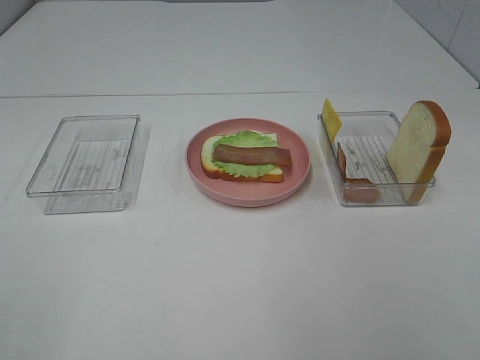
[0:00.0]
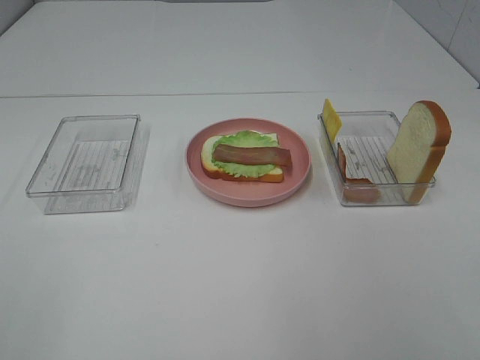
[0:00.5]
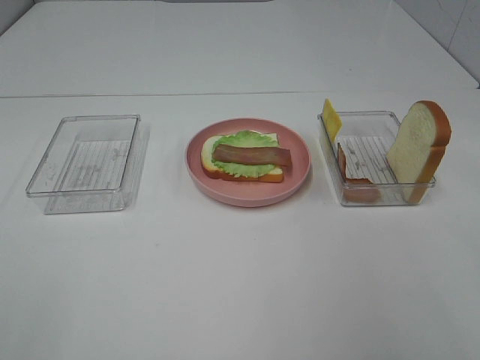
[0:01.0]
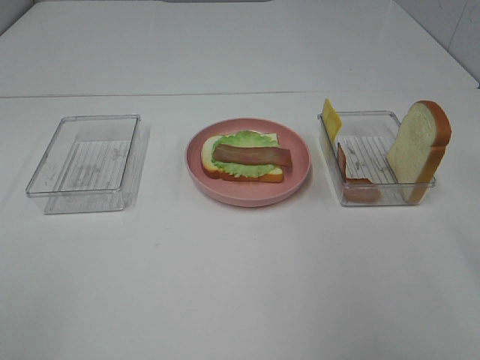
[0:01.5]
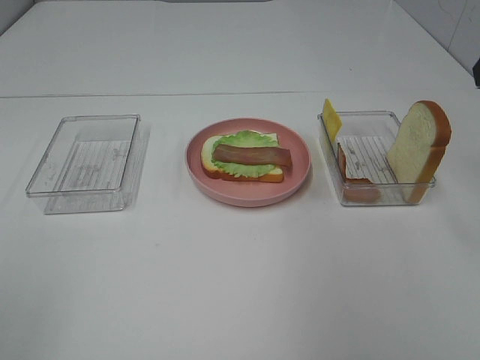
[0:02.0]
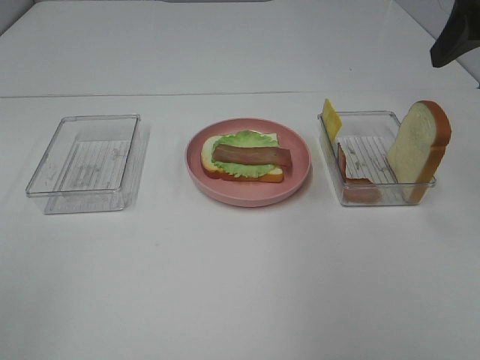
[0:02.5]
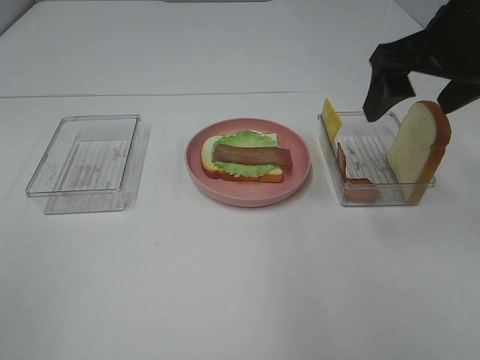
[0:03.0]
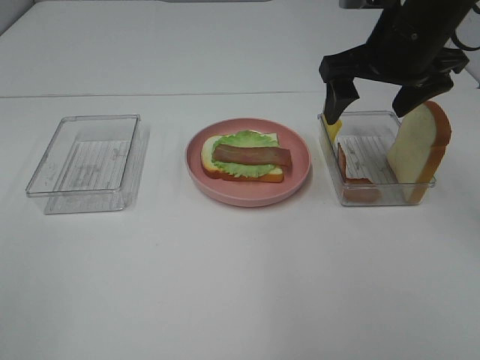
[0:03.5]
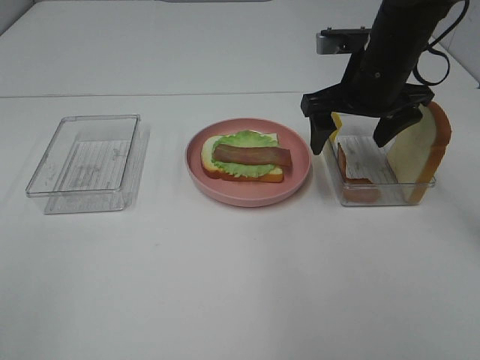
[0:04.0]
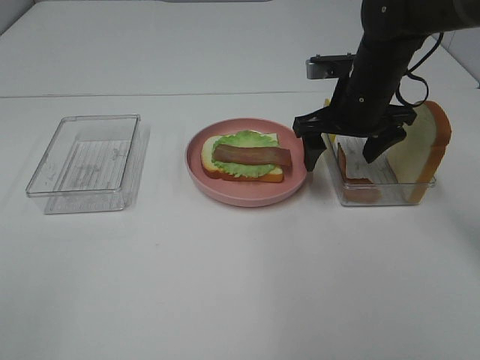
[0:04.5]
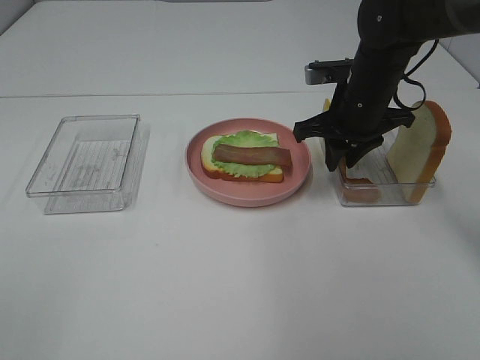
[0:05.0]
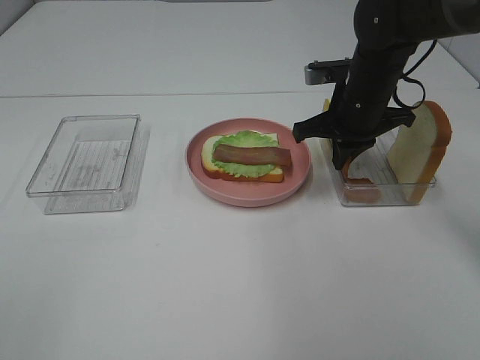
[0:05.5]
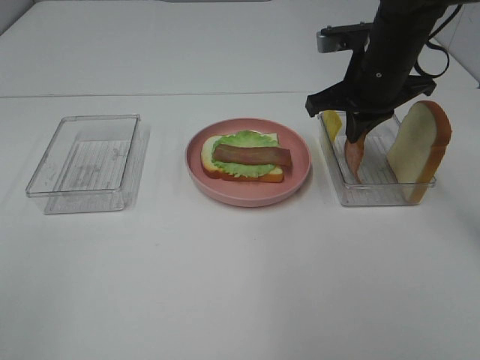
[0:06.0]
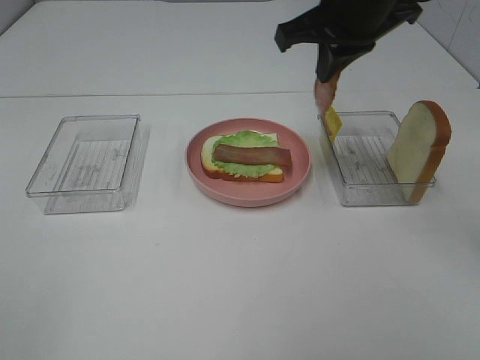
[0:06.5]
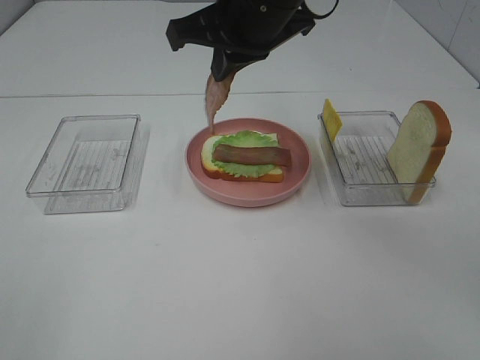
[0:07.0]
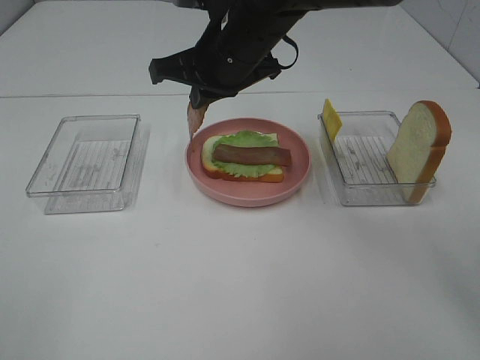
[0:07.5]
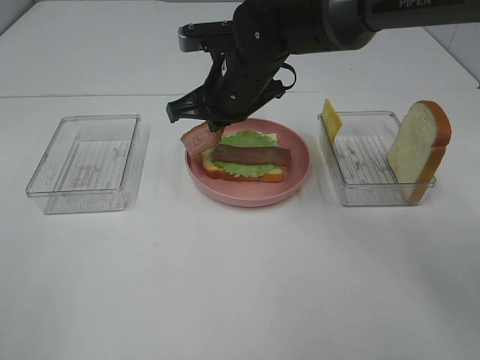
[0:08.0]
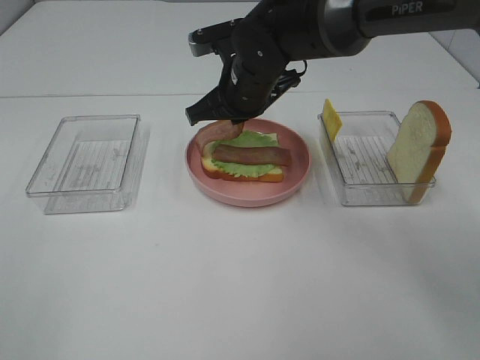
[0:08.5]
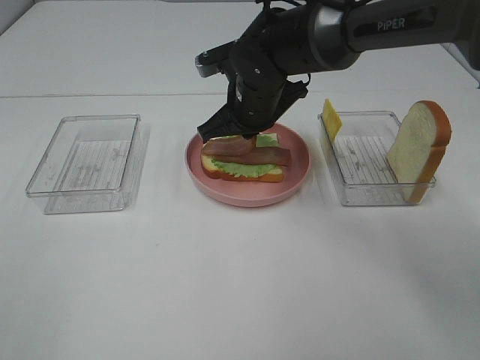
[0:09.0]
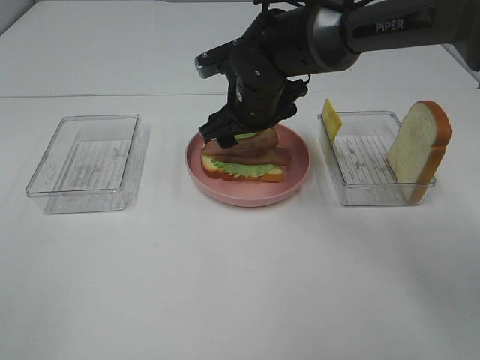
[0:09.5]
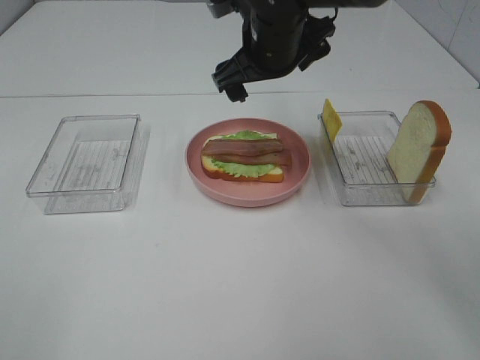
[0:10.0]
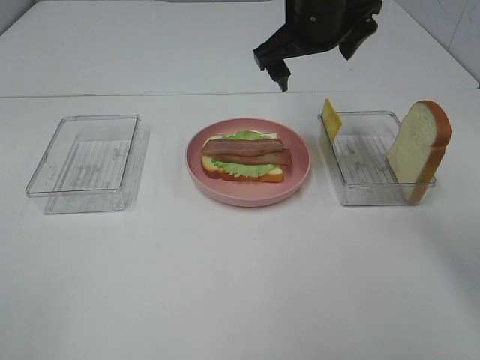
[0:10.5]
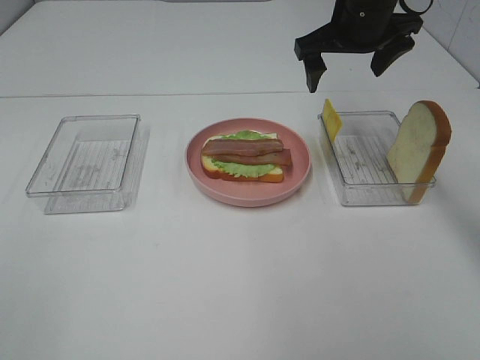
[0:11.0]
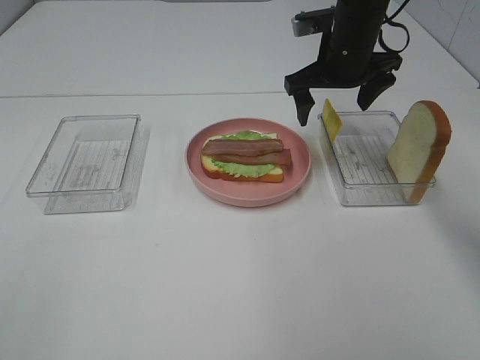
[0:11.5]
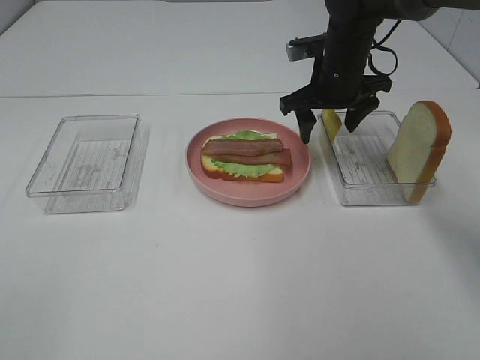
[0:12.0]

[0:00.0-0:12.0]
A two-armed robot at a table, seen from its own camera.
Task of the whole recording: Make sandwiches.
Step, 0:00.0 to 0:05.0: Right hand:grab the bacon.
Step, 0:05.5 to 0:10.0: Right hand:place bacon on bacon.
0:02.0 to 0:04.0: The right gripper shifts about 20 cm downward, forward and to the left.
0:04.0 to 0:06.0: The right gripper closes up.
0:06.0 to 0:08.0: The right gripper is displaced to the left by some 15 cm.
0:08.0 to 0:10.0: The right gripper heads upward, covering approximately 5 cm, and opens up.
0:10.0 to 0:12.0: The right gripper moves to the right, downward and forward, some 15 cm.

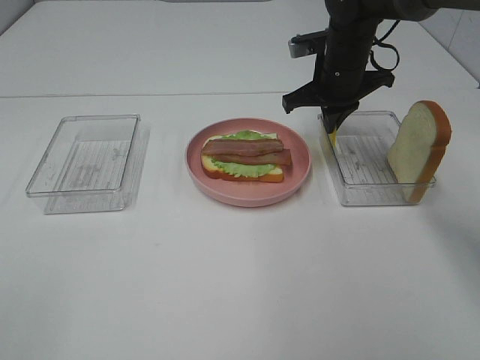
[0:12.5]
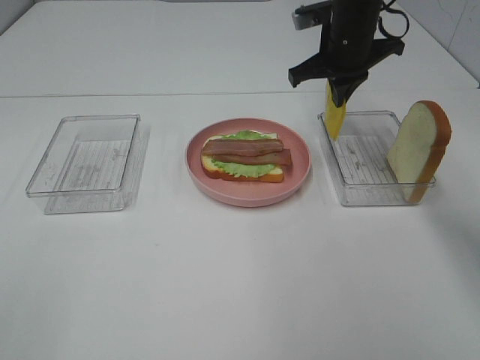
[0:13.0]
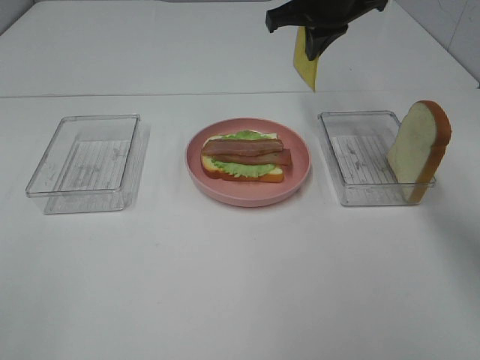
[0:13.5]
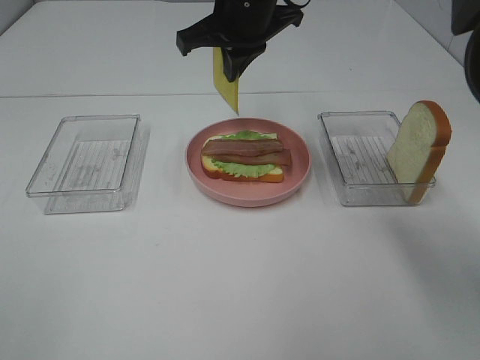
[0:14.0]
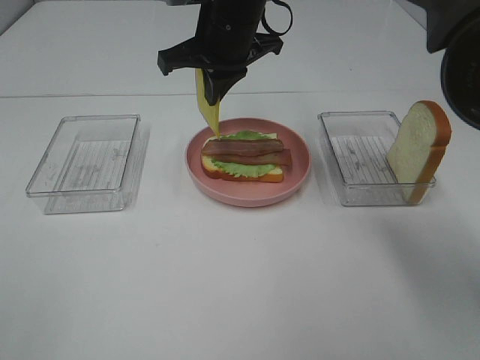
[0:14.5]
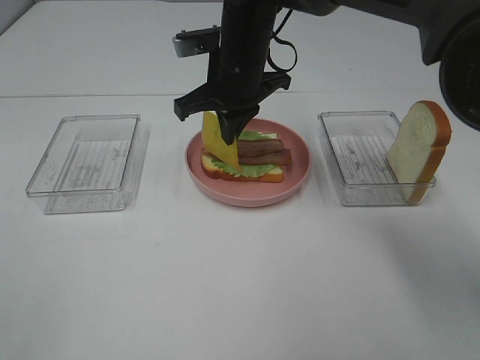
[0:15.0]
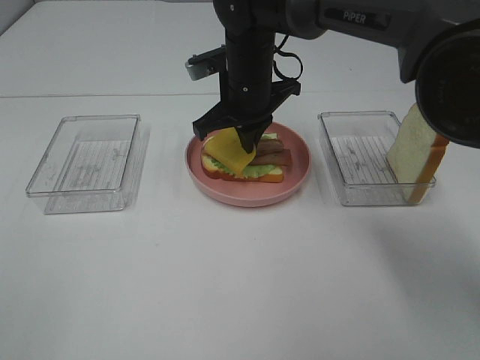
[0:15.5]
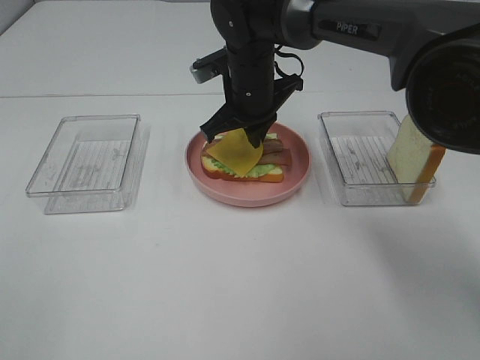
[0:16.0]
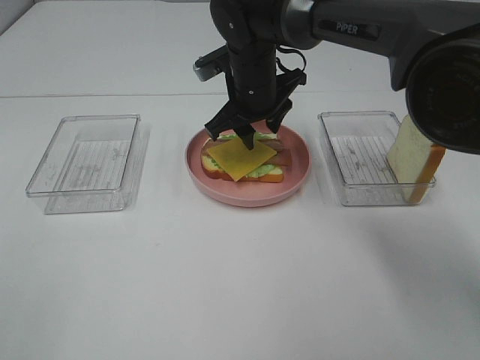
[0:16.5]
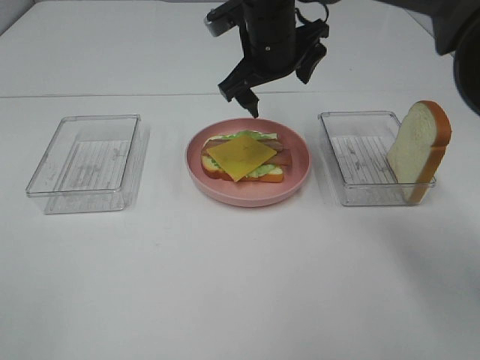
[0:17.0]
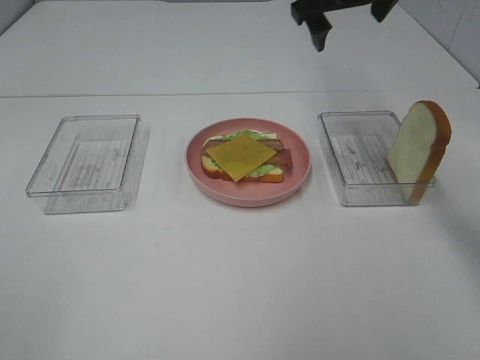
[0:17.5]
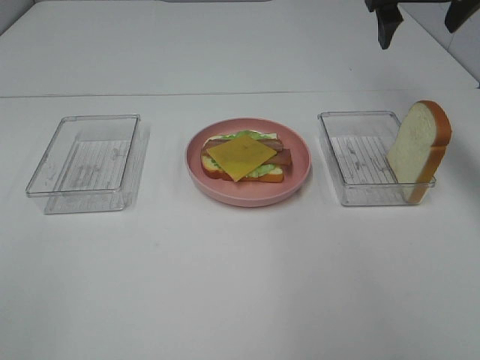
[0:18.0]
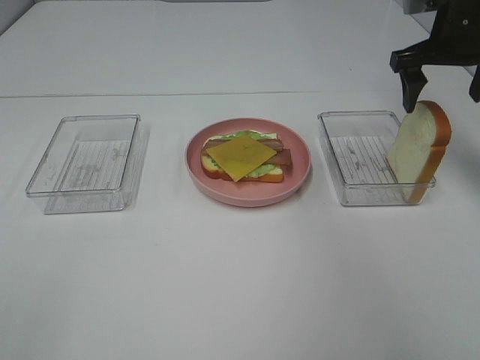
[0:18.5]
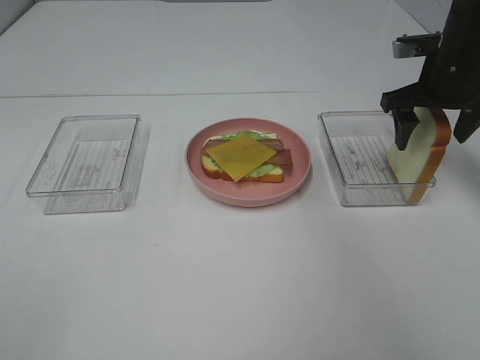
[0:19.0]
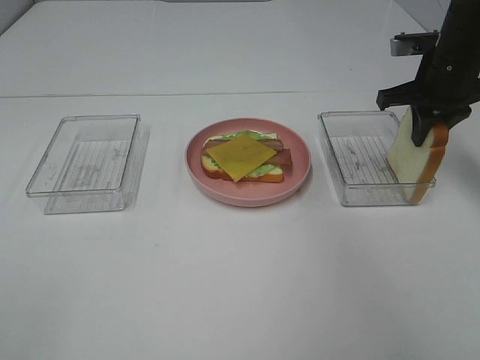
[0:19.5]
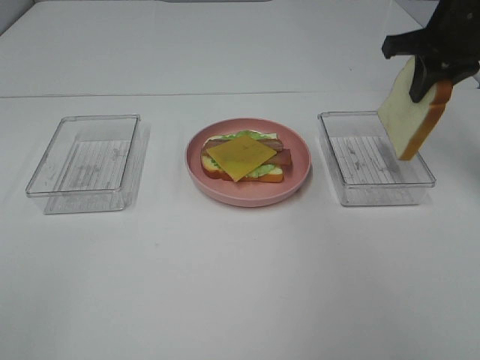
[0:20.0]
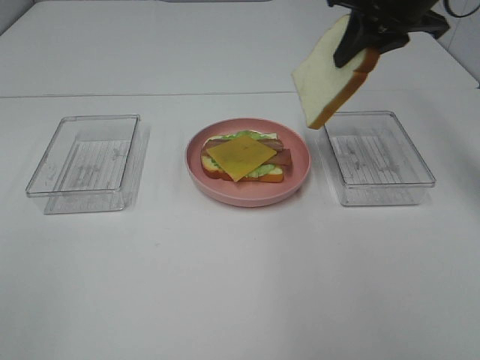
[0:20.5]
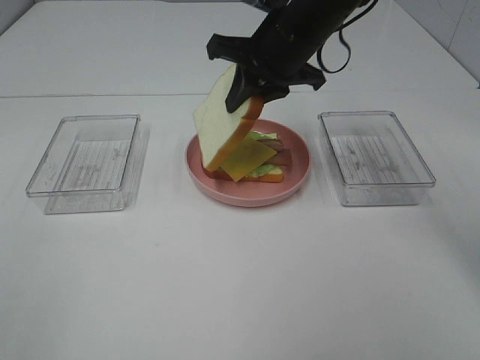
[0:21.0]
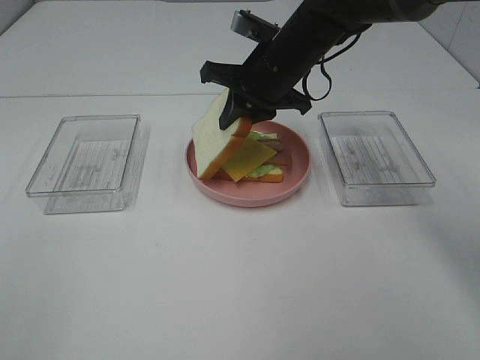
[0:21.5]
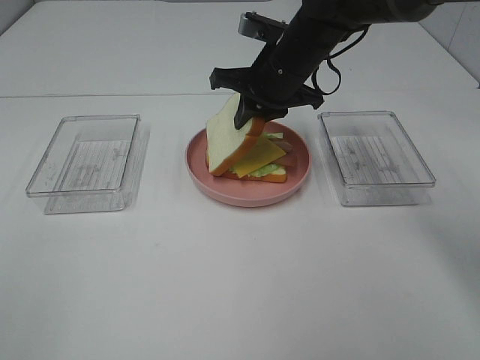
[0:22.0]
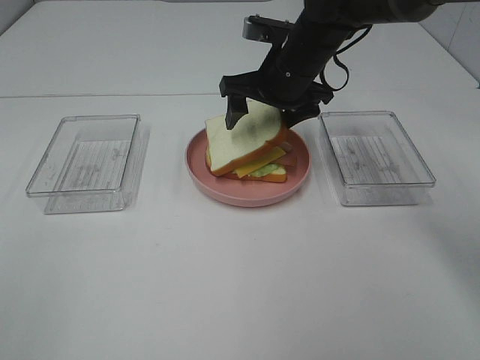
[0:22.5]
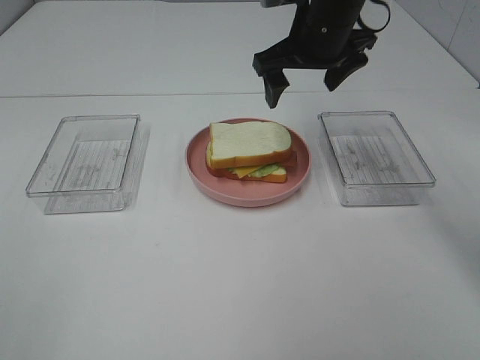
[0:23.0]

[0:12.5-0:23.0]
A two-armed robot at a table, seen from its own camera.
Task of the whole recording: Make sandwiches.
Step, 0:13.0 to 0:16.5: Right hand:place the cheese slice on top of the bacon.
Step, 0:17.0 to 0:19.5: Right hand:grab the bread slice.
Step, 0:20.0 to 0:22.5: Right hand:place bacon on bacon.
0:12.5 to 0:14.5: The right gripper travels to the left and upward by roughly 15 cm.
0:14.5 to 0:16.5: The right gripper goes about 10 cm downward, and opens up.
0:16.5 to 0:19.0: The right gripper shifts about 25 cm to the right.
0:19.0 to 0:21.0: The right gripper moves to the left, about 20 cm, and closes.
0:21.0 to 0:23.0: The right gripper opens its fingers.

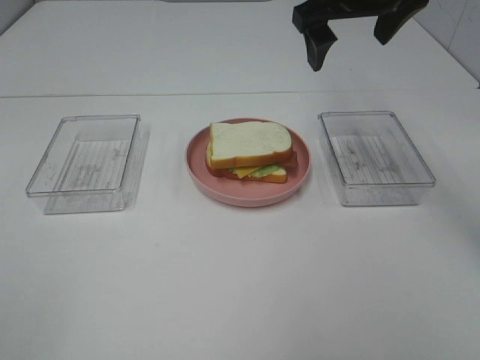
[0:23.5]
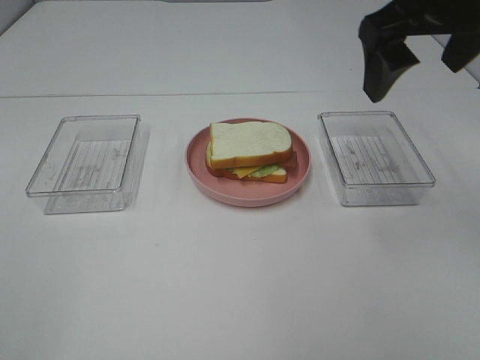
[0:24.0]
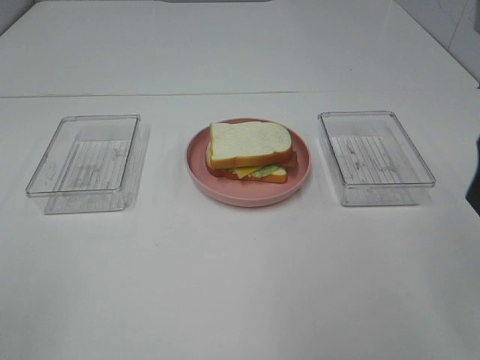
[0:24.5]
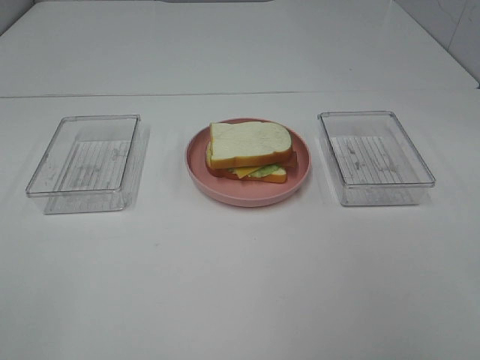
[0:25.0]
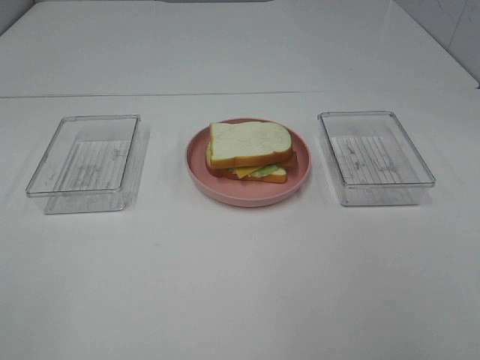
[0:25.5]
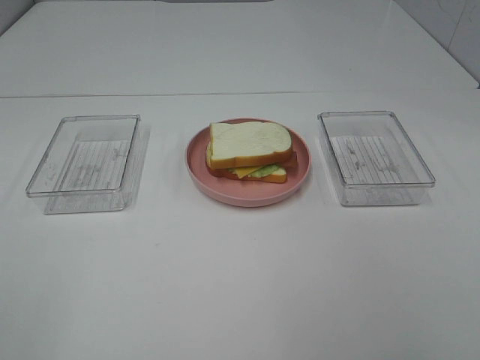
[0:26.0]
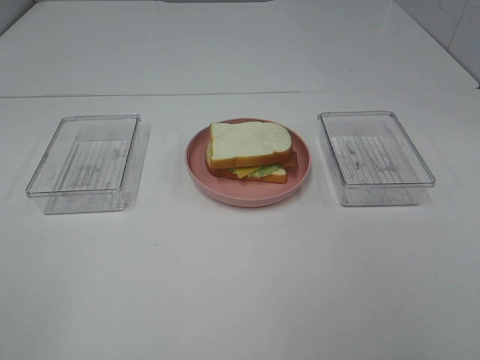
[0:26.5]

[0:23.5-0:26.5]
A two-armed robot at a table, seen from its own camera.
Task of the whole recording: Make sandwiches.
0:23.5 to 0:25.0: The right gripper travels backward and to the right by about 35 cm.
